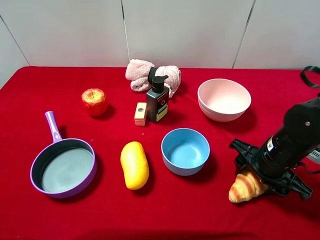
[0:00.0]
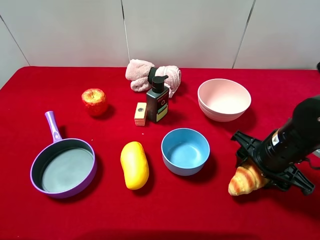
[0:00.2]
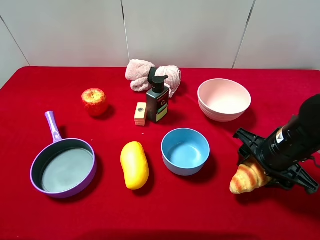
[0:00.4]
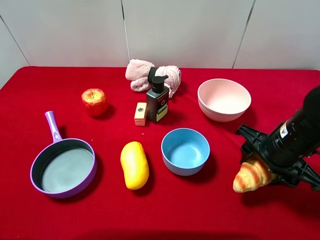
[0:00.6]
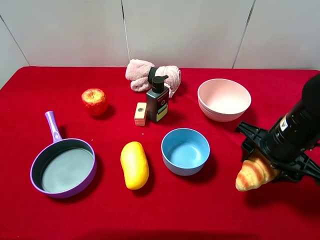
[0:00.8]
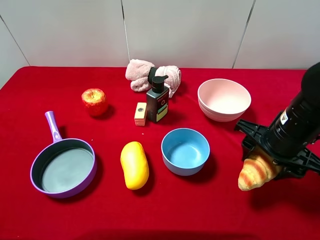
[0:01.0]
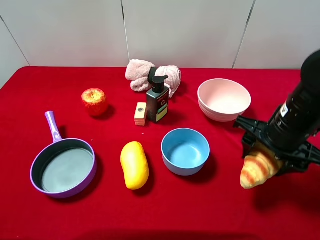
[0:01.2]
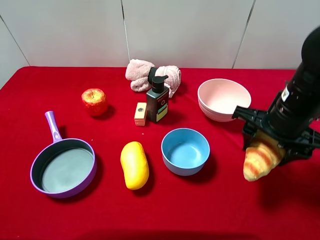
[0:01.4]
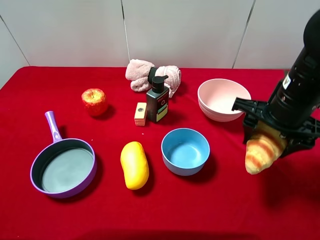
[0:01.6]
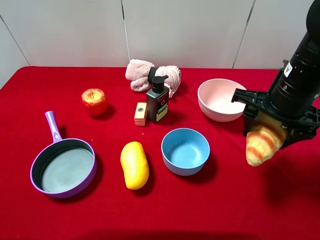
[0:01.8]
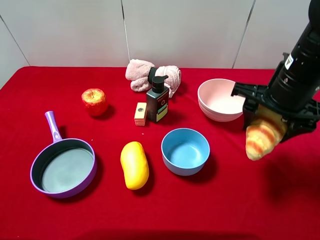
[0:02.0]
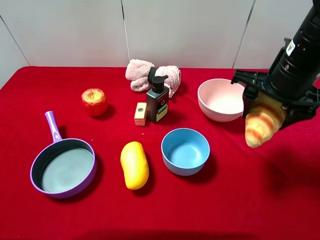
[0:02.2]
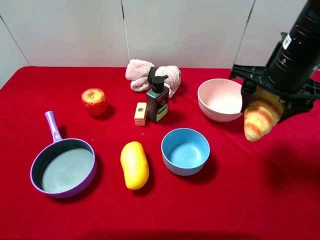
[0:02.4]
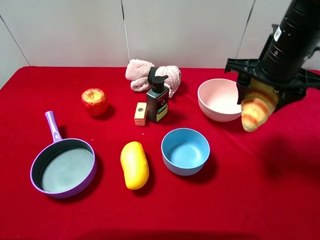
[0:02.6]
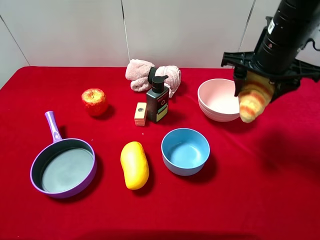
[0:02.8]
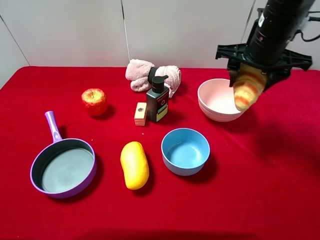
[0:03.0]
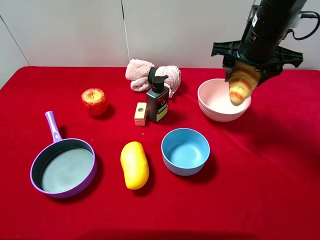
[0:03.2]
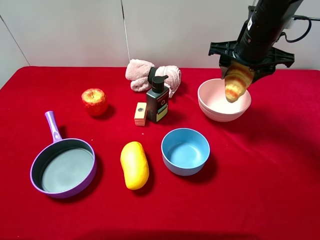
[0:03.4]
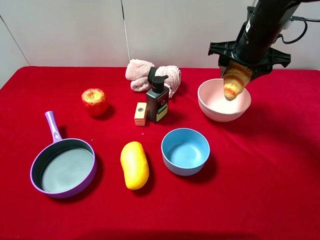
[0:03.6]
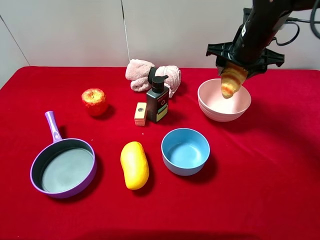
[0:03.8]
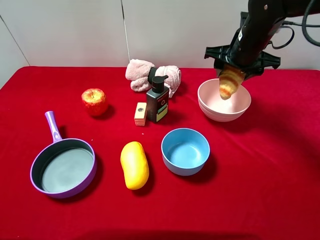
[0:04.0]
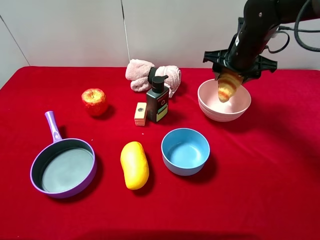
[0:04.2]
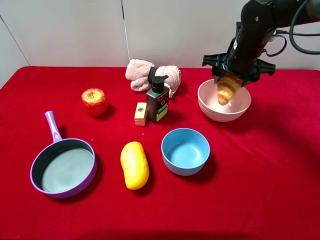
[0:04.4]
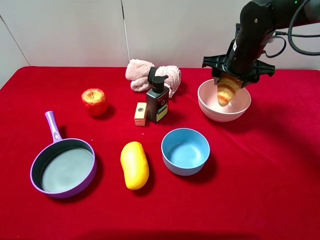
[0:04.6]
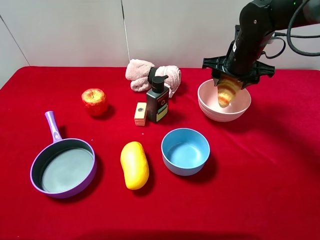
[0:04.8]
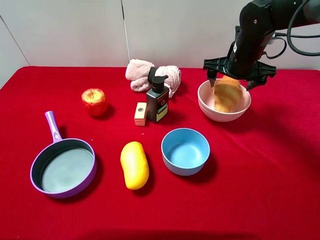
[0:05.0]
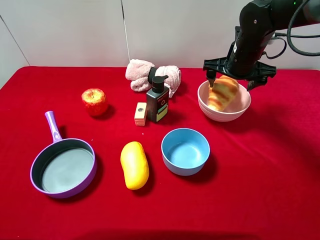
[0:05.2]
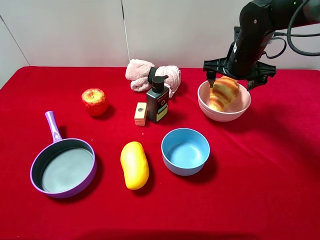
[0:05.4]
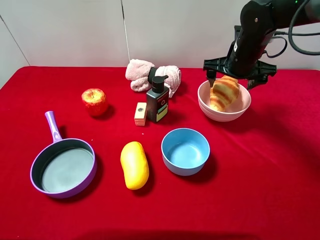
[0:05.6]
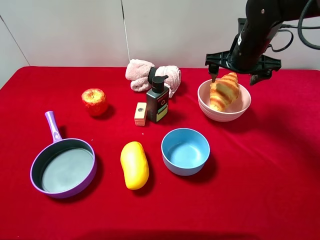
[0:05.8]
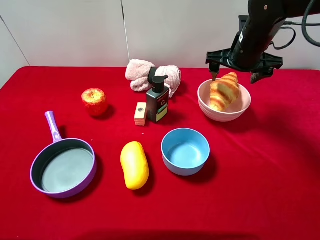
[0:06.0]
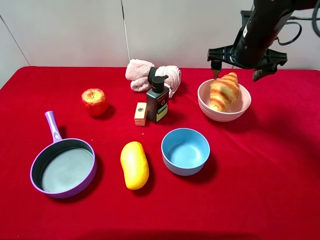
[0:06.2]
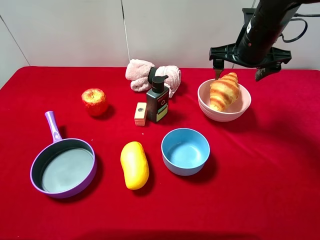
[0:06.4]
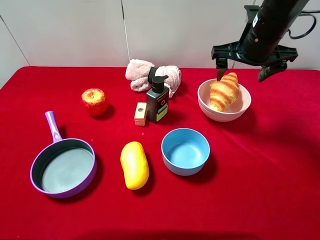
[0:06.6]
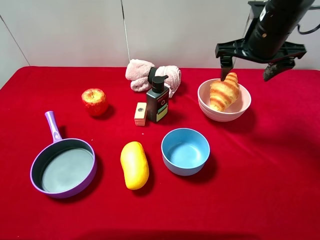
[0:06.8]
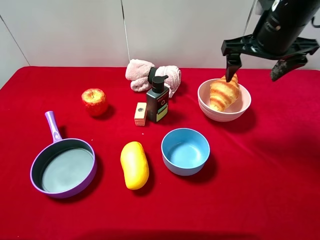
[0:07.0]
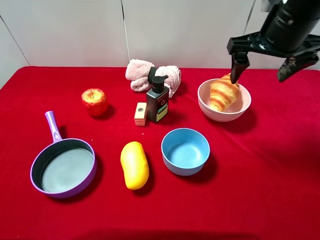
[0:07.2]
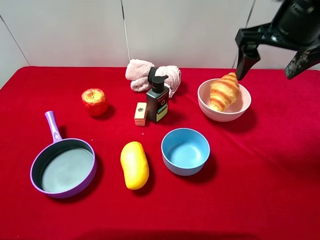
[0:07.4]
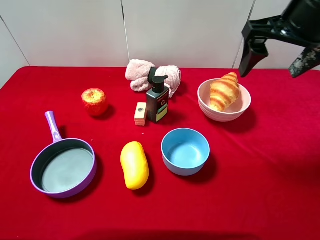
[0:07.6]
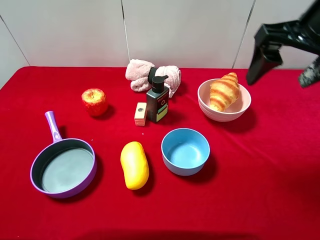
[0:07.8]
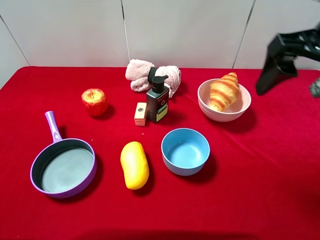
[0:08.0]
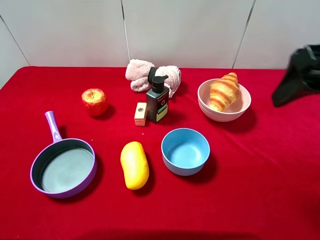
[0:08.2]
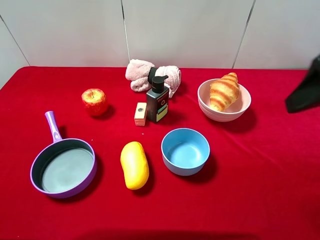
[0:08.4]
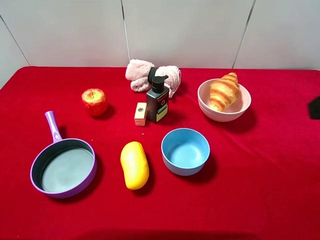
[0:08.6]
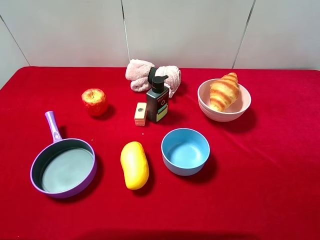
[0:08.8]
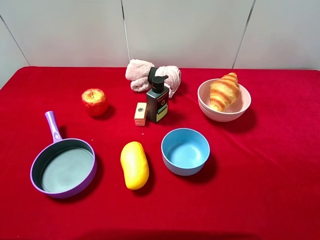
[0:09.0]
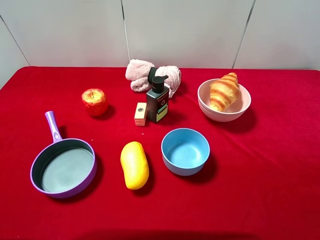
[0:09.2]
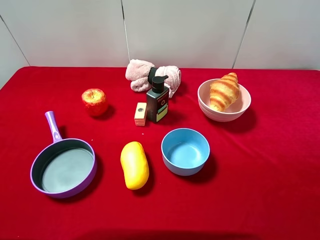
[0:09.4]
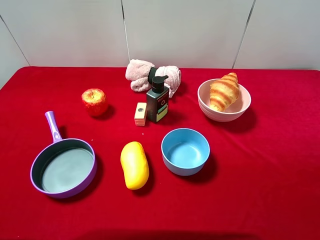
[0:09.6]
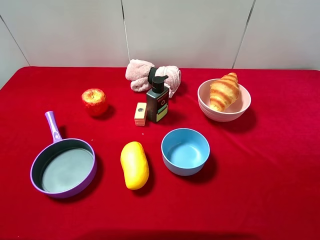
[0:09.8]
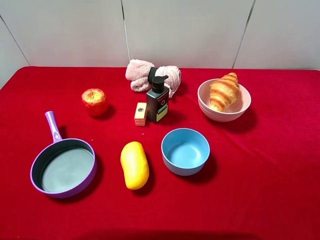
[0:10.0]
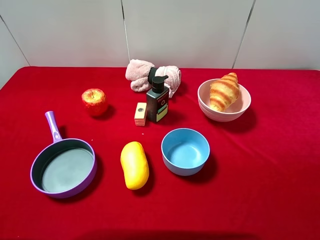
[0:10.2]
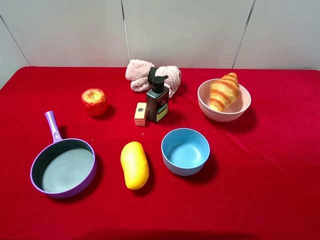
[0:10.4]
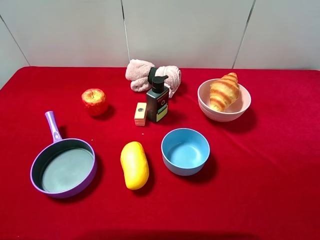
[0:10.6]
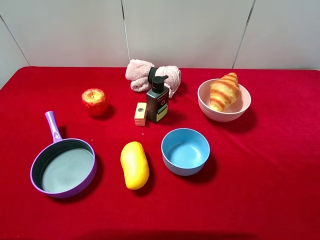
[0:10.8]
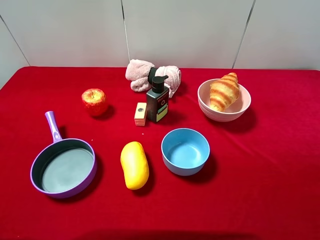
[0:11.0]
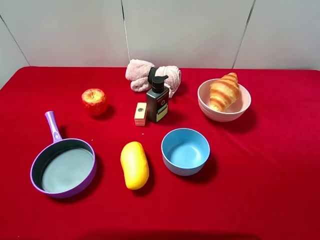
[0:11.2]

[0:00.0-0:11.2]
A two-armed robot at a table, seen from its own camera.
Task of the whole recording: pick up an item with a gripper and place it in a random container on the desktop.
0:00.0 to 0:01.6: The right gripper is displaced upward by some 10 cm.
0:01.6 to 0:03.2: The right gripper is displaced forward by roughly 10 cm.
0:03.2 to 0:04.8: The right gripper is displaced downward by roughly 5 cm.
0:04.8 to 0:06.4: The right gripper ends up about 5 cm from where it was, and opens.
0:06.4 to 0:08.0: The right gripper shifts approximately 20 cm backward and upward.
0:08.0 to 0:09.6: The right gripper travels backward and to the right by approximately 20 cm.

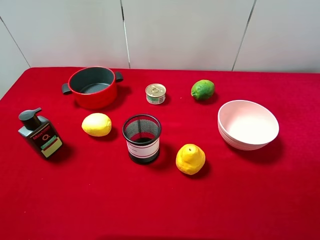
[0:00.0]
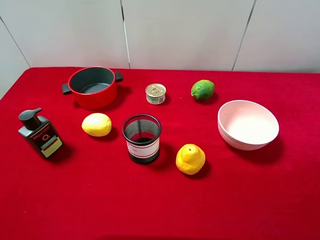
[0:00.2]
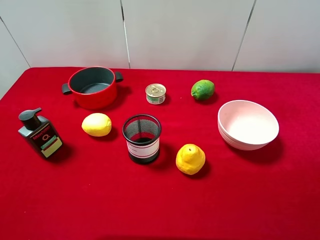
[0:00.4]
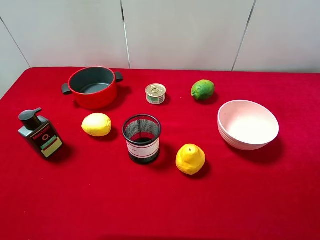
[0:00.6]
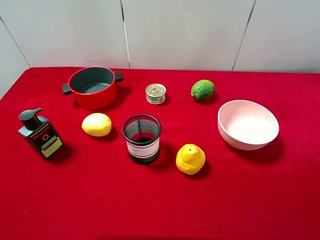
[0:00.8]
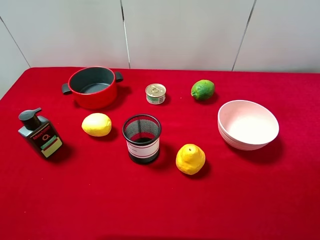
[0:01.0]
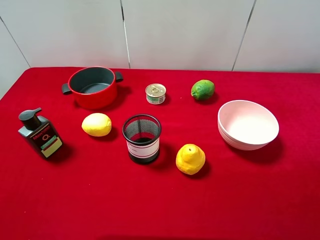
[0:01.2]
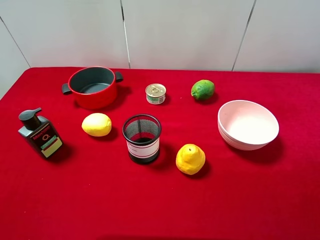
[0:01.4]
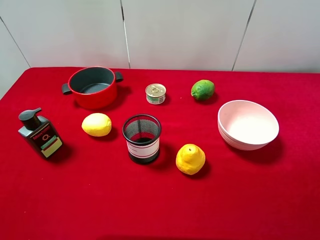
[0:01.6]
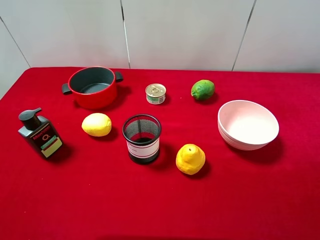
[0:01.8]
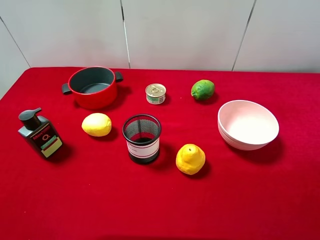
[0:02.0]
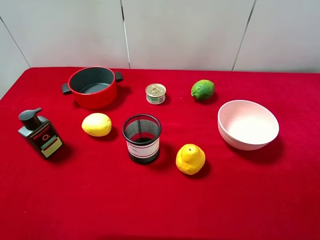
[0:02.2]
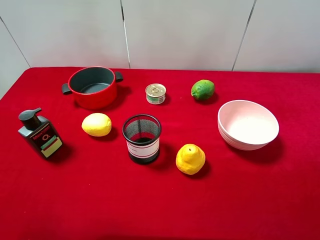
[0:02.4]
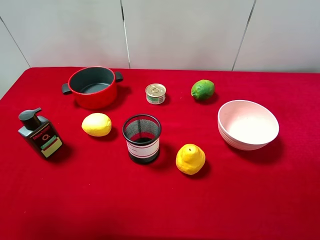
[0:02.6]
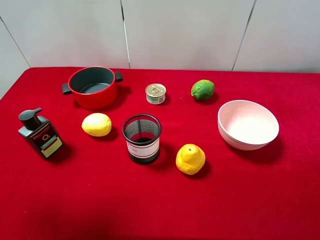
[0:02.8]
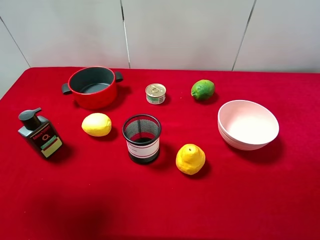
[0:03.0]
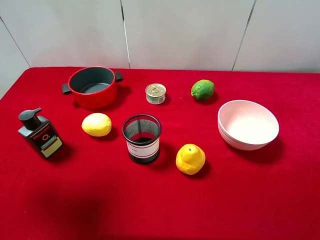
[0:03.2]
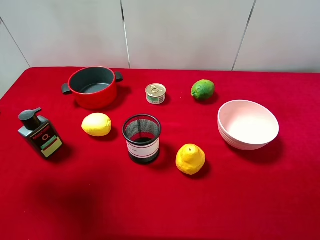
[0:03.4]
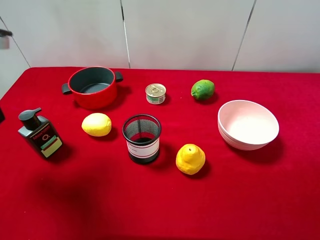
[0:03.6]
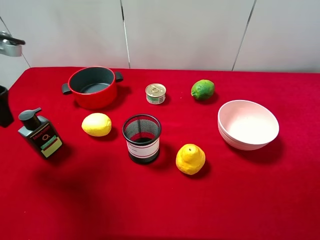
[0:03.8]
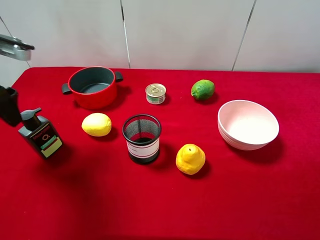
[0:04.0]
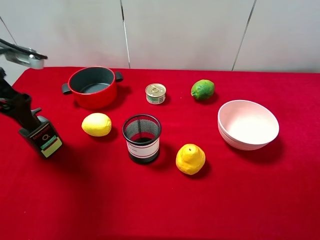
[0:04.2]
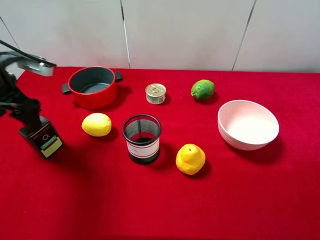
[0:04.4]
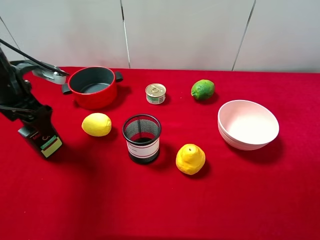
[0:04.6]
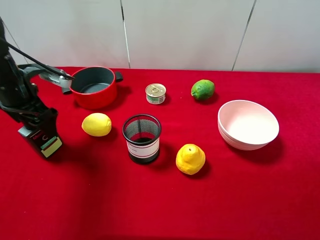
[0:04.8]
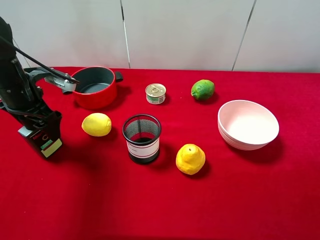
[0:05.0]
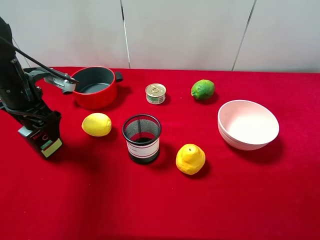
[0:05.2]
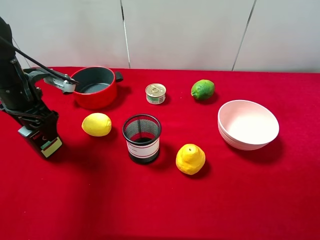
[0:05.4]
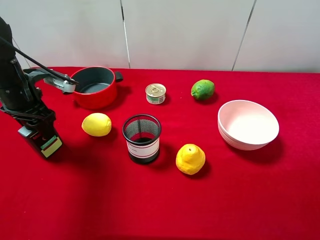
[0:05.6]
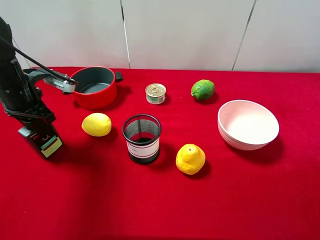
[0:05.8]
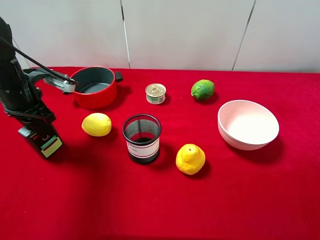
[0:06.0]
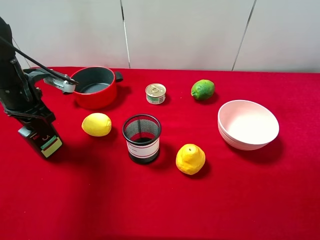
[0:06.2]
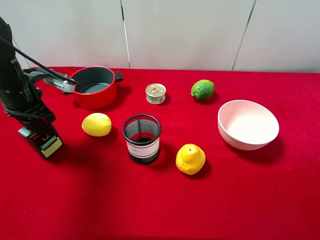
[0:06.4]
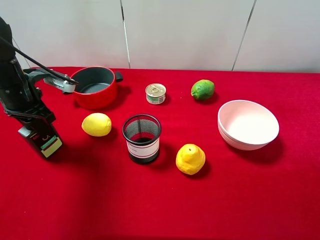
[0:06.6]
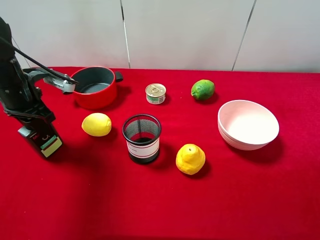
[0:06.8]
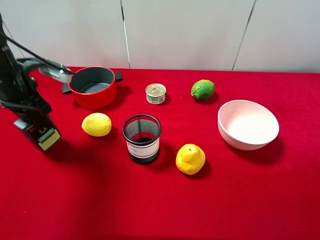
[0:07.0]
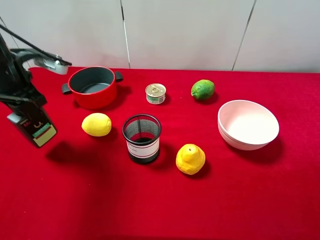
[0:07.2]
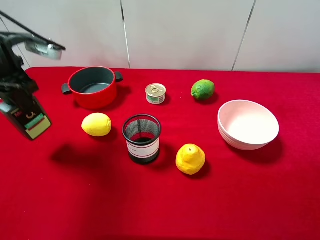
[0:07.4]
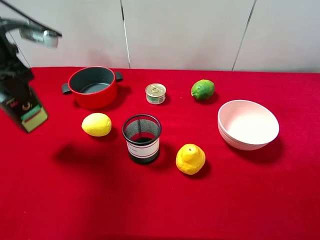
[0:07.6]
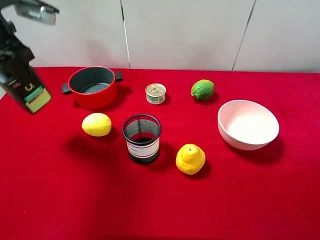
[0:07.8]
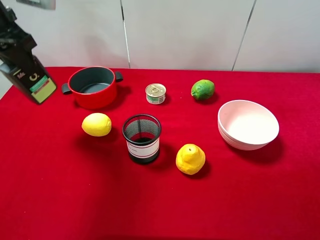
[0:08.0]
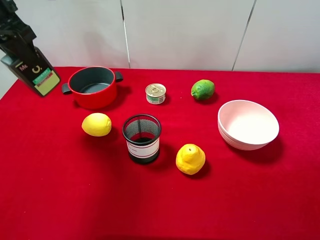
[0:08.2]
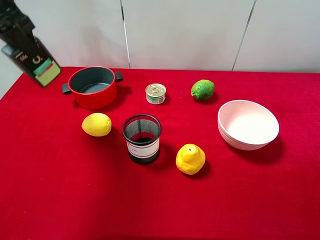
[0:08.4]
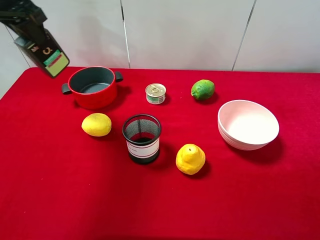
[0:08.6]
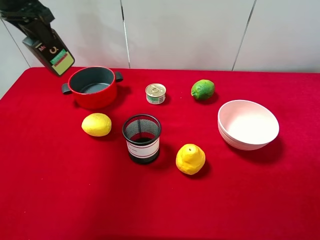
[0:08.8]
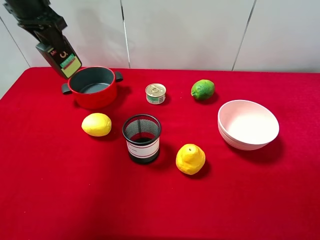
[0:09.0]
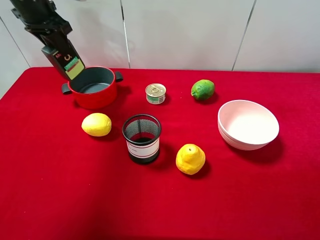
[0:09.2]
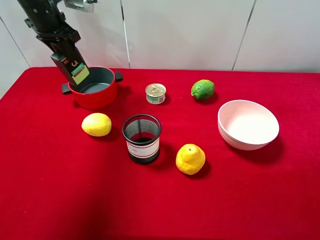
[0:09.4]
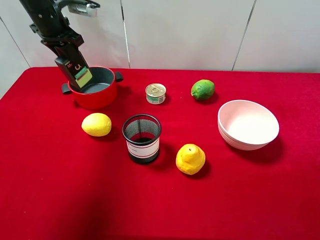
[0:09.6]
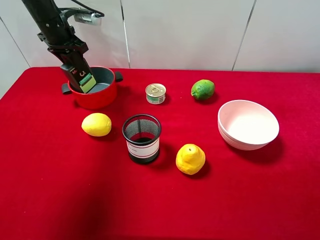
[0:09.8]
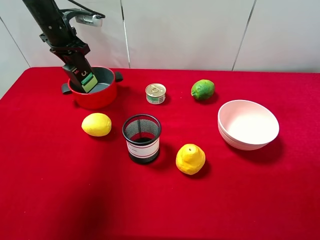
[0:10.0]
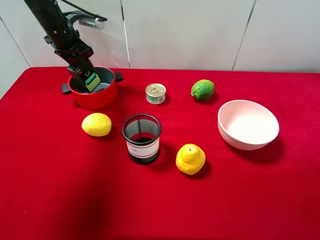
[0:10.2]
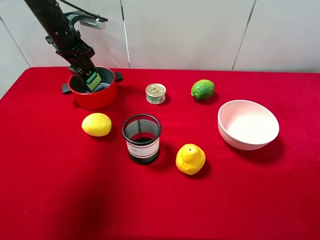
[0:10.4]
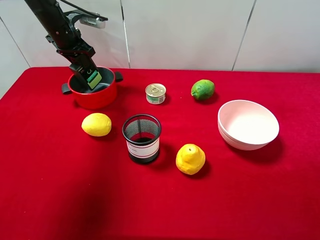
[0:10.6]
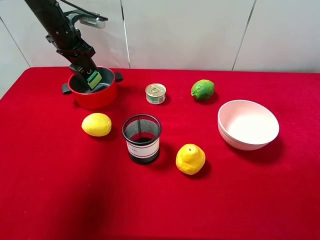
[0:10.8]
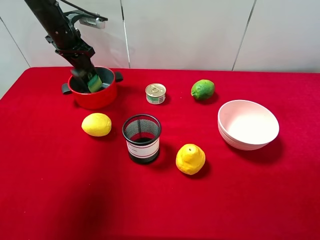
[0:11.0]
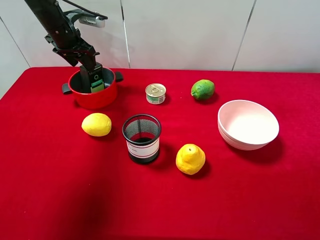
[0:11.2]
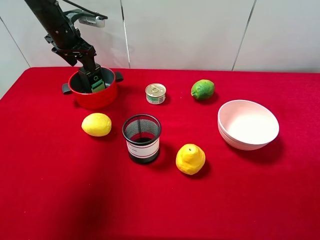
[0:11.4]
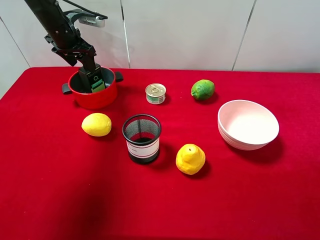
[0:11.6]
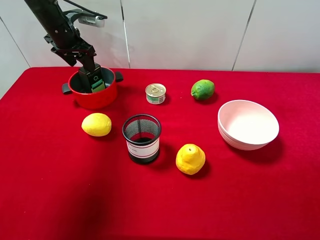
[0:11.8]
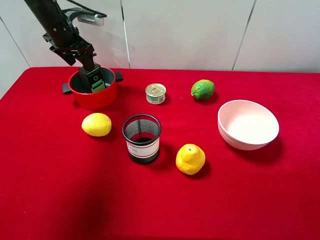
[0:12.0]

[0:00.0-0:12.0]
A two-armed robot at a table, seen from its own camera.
Task of the whole recording: pick up an item with a gripper and place it in a random container on the desktop.
0:01.6 to 0:03.0: The left gripper travels forward by approximately 15 cm.
0:03.0 to 0:04.4: The left gripper heads downward and forward, covering some 20 cm.
0:04.4 to 0:06.0: The left gripper closes up.
0:06.0 to 0:07.6: The left gripper goes about 10 cm upward.
0:07.6 to 0:09.0: The left gripper moves forward, about 10 cm.
0:09.0 to 0:10.4: The left gripper shifts roughly 10 cm downward and forward.
0:10.4 to 0:12.0: The left gripper opens up.
